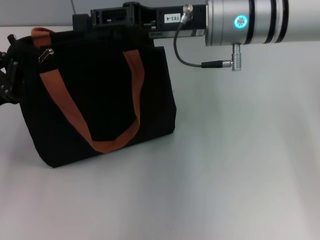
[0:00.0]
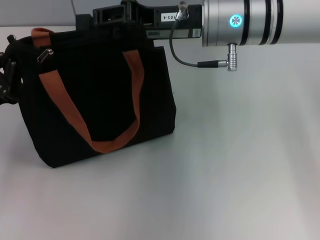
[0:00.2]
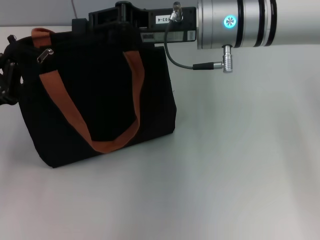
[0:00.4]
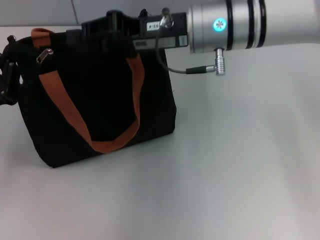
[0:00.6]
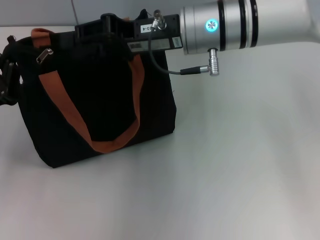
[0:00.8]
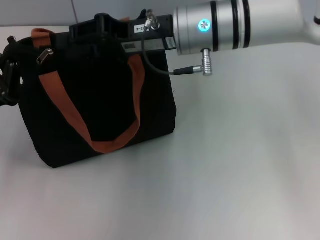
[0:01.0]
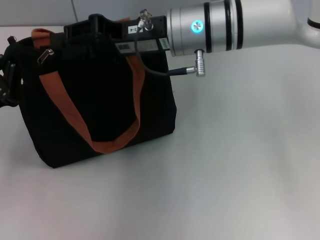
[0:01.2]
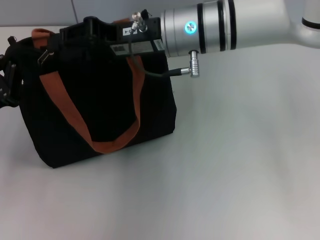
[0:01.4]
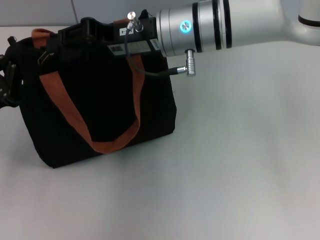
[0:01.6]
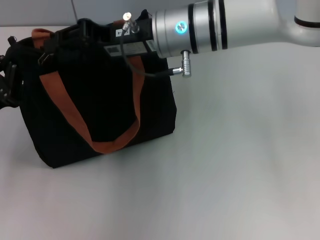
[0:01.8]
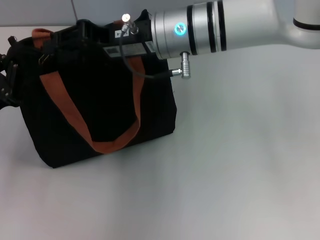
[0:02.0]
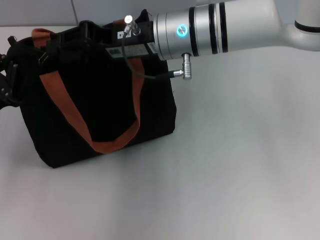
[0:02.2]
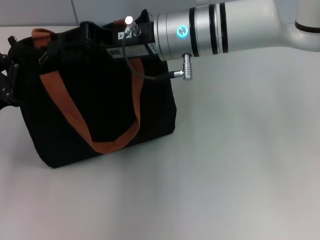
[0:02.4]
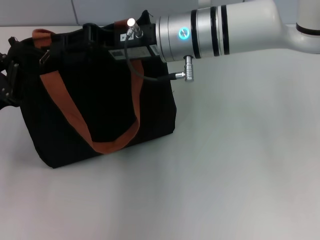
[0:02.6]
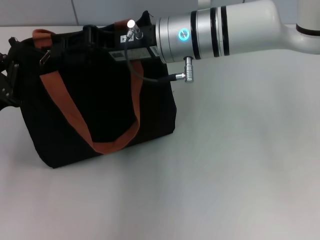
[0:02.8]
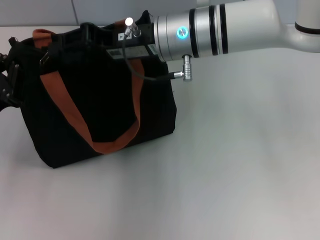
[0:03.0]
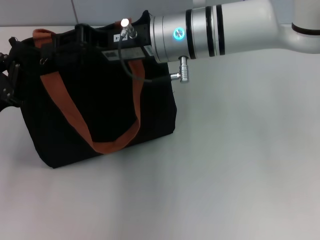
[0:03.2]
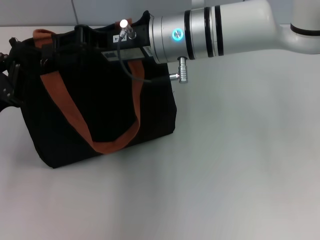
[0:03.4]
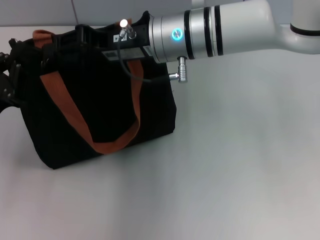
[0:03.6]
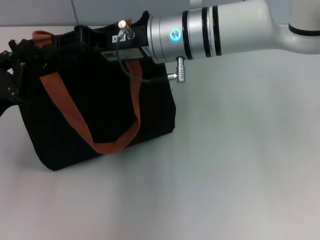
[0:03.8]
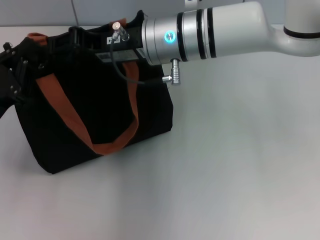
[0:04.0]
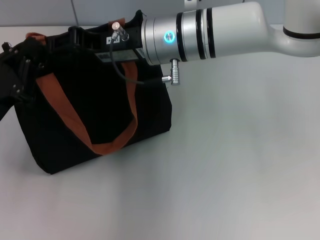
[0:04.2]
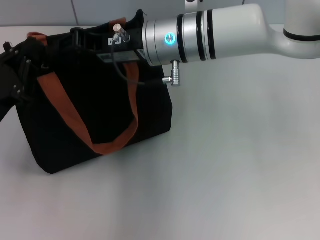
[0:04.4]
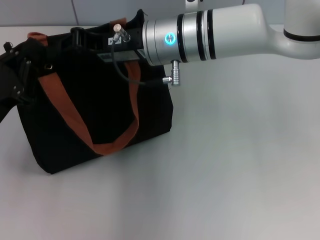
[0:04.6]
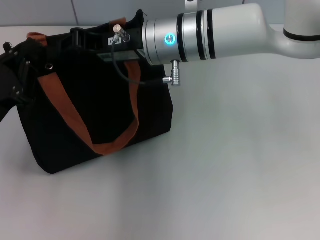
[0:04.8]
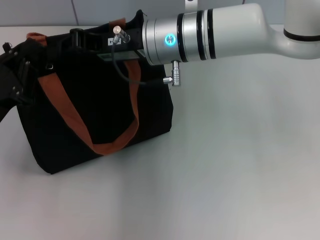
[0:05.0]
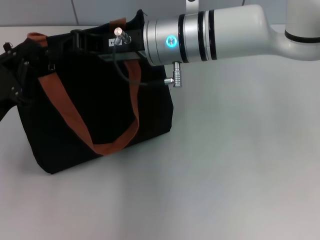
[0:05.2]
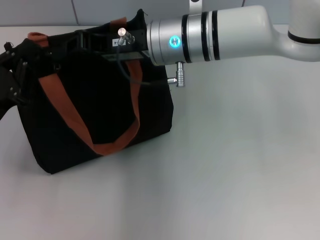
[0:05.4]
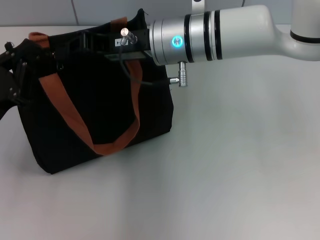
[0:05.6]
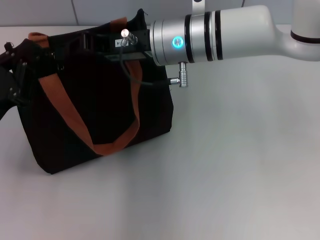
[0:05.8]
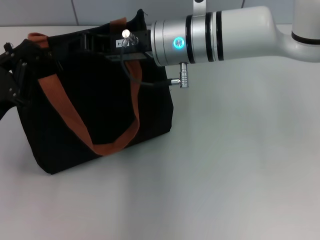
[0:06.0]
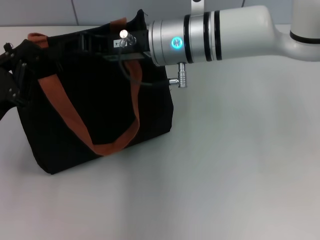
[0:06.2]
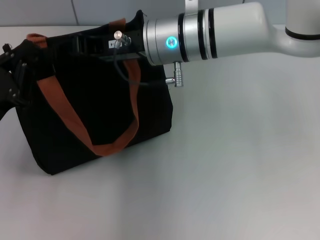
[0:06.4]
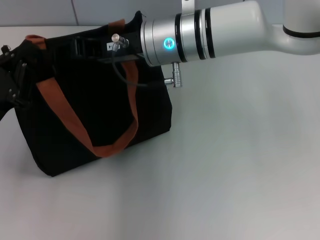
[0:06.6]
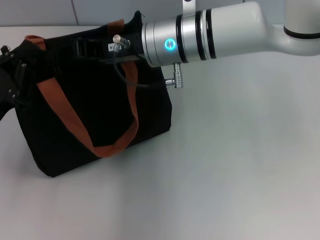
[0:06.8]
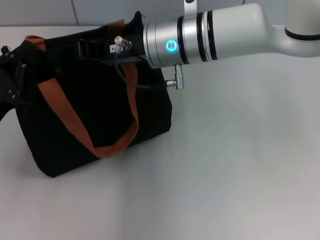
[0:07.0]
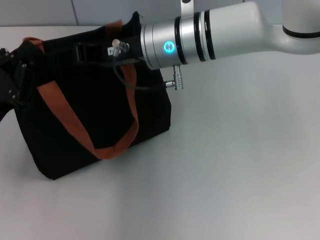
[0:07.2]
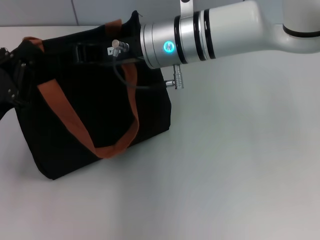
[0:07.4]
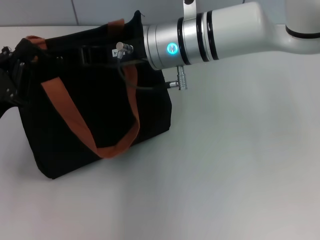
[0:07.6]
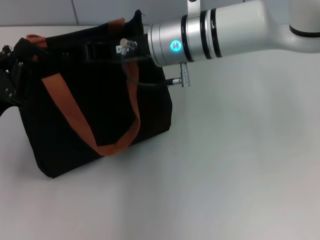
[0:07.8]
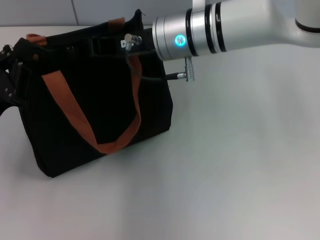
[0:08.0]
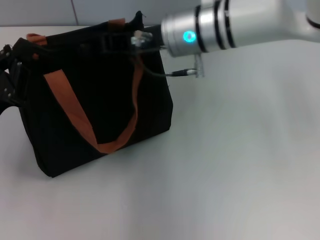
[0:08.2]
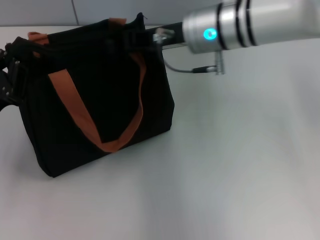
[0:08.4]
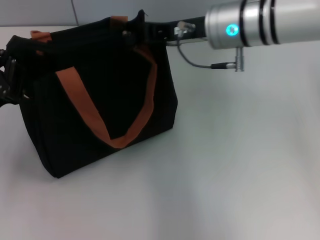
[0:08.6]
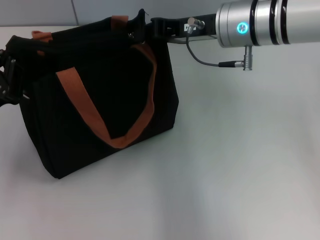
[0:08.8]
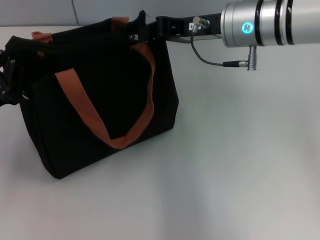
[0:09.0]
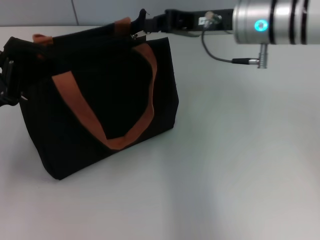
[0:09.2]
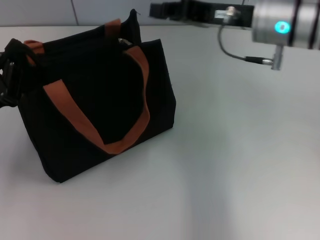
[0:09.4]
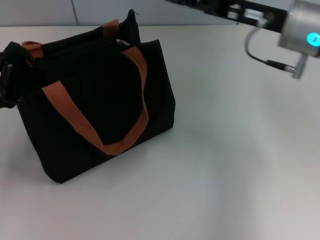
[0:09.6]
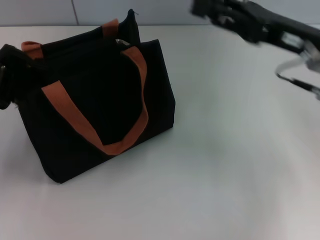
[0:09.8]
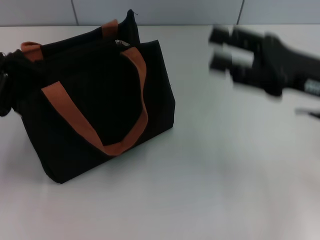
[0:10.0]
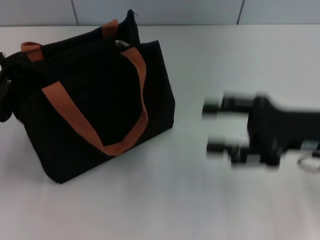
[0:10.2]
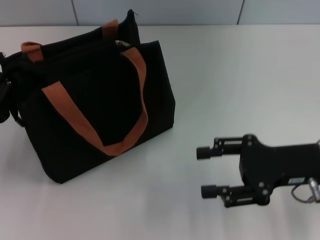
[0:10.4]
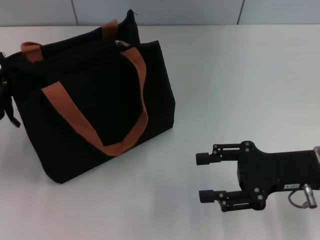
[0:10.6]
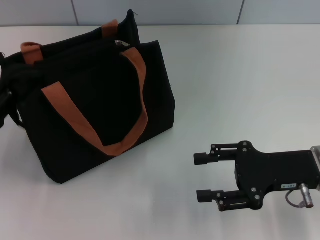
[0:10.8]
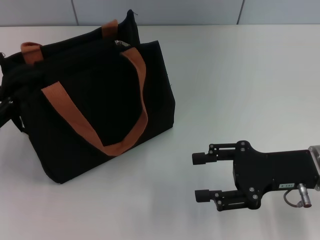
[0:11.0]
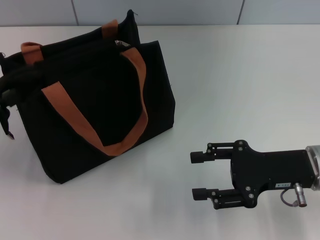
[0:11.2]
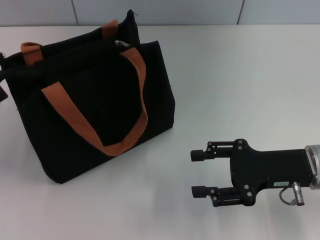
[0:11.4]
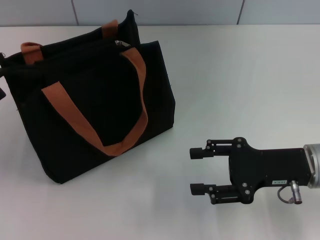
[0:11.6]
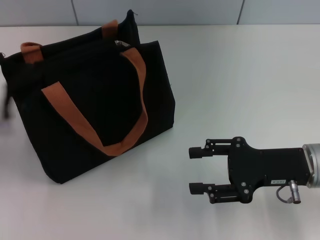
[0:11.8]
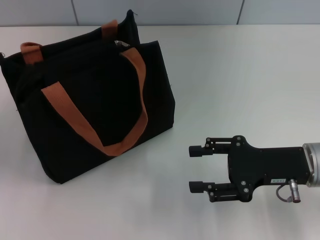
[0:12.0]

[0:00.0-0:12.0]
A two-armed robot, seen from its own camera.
Step, 0:00.0 to 0:09.0: Pull up the zipper with your right hand.
Step, 0:09.4 to 0:11.6: Grab the zipper with your left hand.
0:00.0 to 0:01.6: The right gripper moves to the left, approximately 5 cm.
0:01.6 to 0:03.0: Neither gripper changes place.
0:03.0 to 0:07.6: The grippers stay close to where they were, moving slightly.
0:07.6 to 0:09.0: The right gripper is displaced to the right by roughly 10 cm.
0:09.0 to 0:10.4: The right gripper goes roughly 20 cm backward, to the right and downward, and opens.
0:10.4 to 0:12.0: The left gripper goes about 5 cm to the left, and opens up.

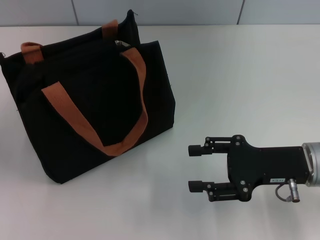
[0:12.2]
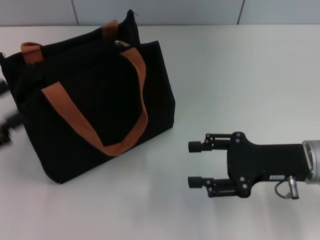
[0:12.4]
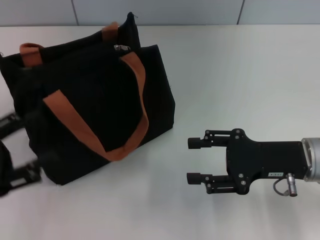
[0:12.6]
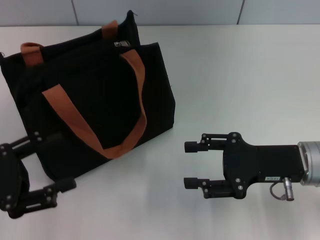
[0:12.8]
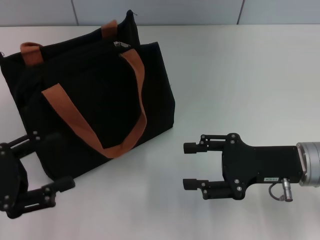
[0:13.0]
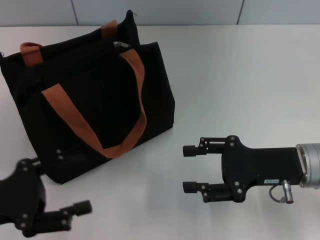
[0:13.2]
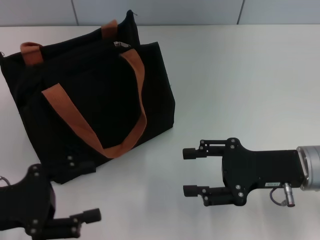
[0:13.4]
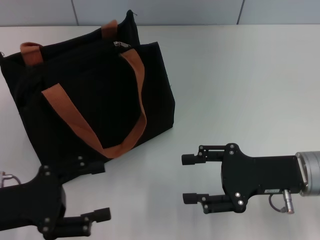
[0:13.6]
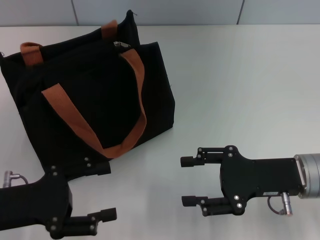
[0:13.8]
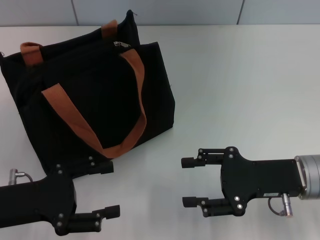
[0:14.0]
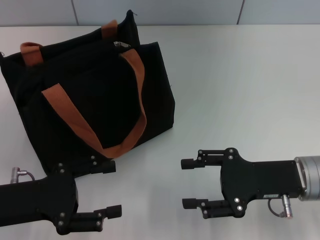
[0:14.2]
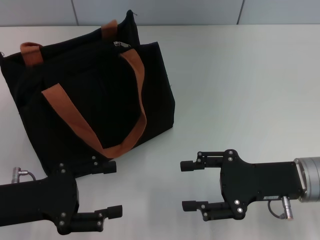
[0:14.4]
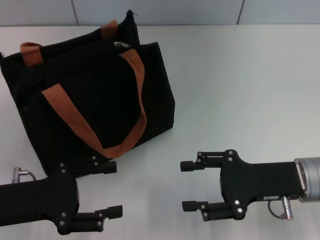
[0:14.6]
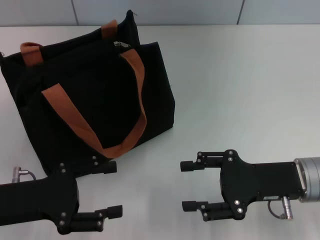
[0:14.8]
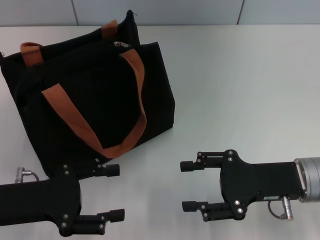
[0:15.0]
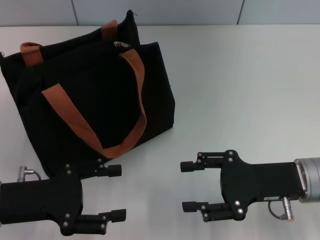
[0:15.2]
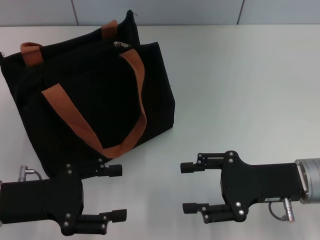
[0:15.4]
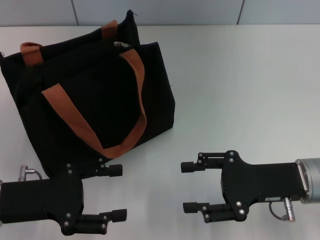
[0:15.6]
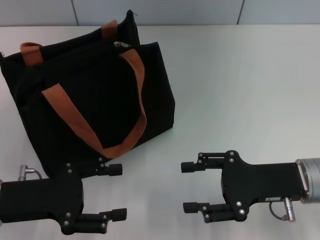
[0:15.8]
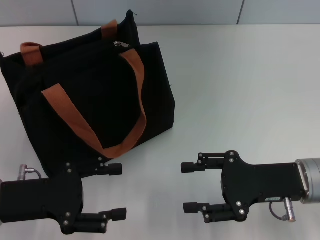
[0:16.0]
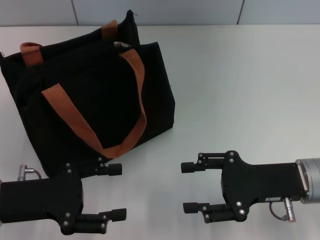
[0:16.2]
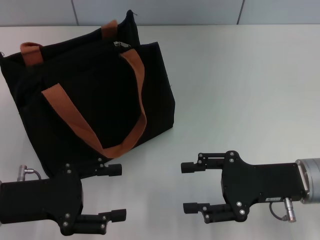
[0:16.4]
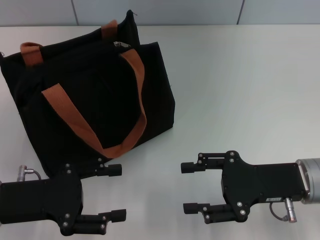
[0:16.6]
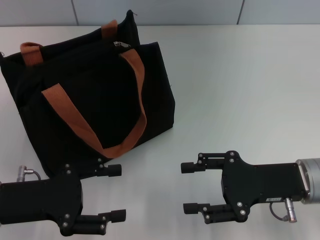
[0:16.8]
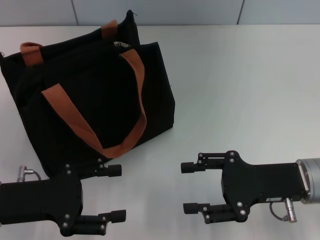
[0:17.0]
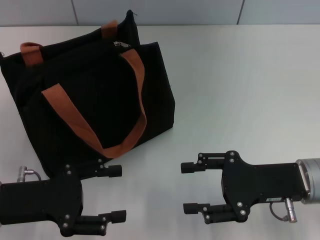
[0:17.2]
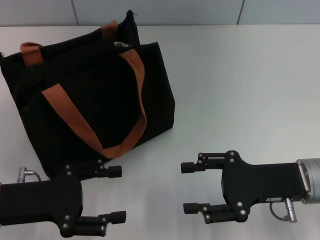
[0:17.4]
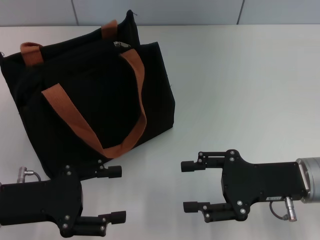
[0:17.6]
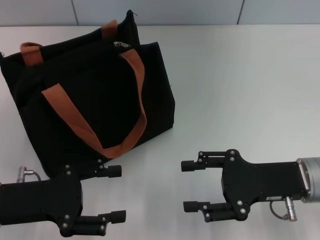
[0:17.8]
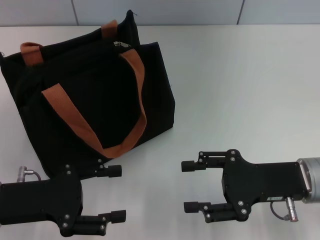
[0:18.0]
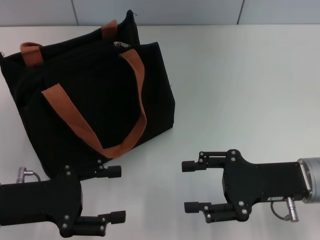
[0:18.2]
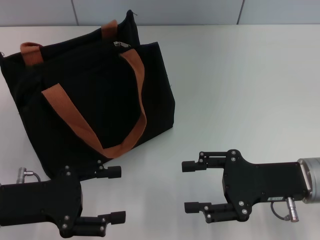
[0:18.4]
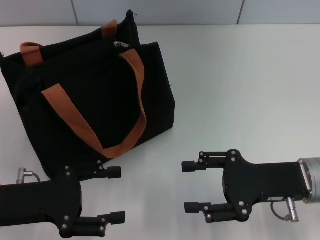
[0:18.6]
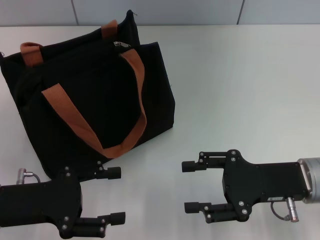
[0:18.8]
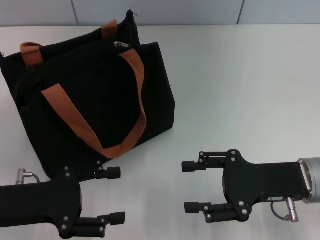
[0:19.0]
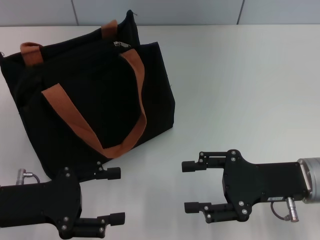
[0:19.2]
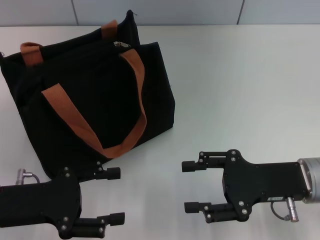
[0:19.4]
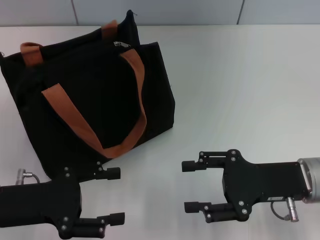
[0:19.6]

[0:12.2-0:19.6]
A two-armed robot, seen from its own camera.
0:12.2 to 0:13.6: The left gripper is displaced to the right by roughly 10 cm.
0:13.6 to 0:15.2: The grippers move only a little.
0:15.2 to 0:19.6: Both grippers stay put.
